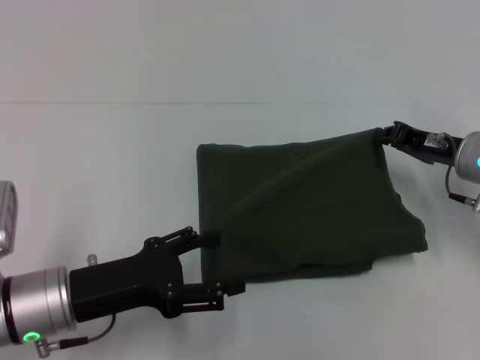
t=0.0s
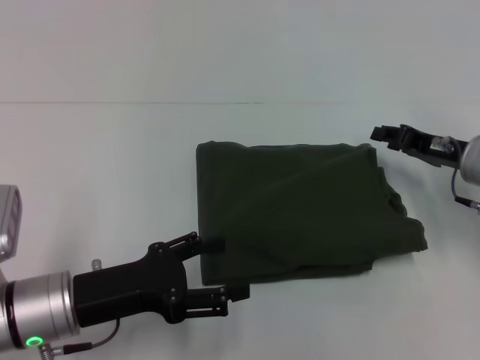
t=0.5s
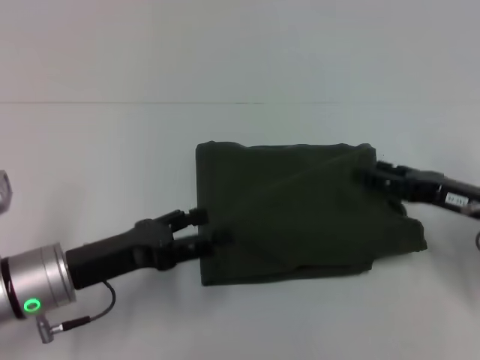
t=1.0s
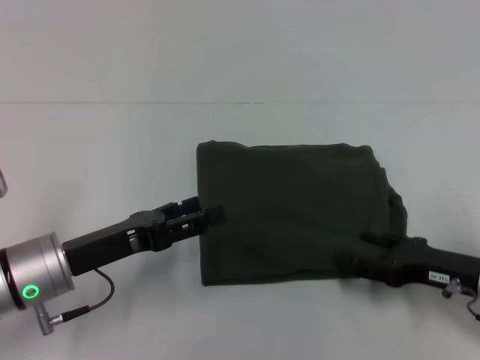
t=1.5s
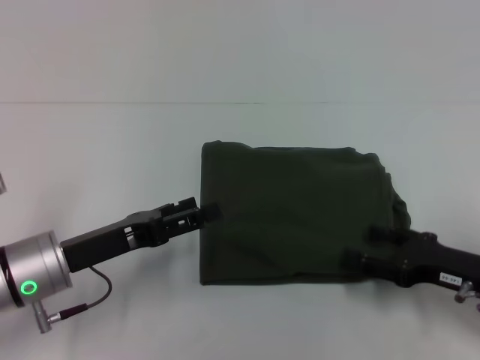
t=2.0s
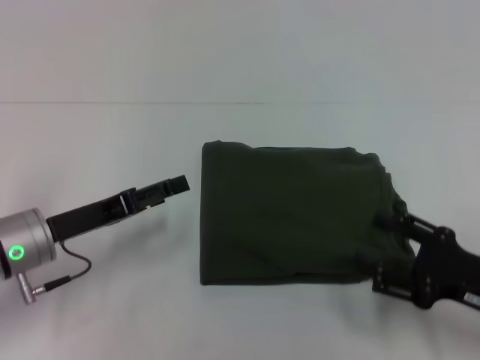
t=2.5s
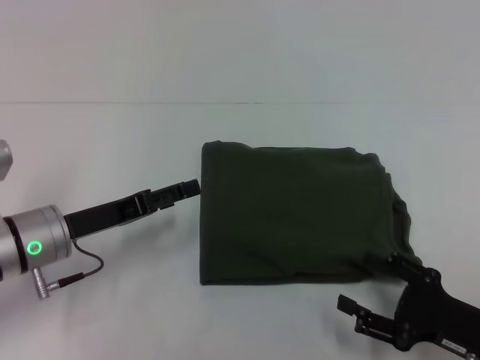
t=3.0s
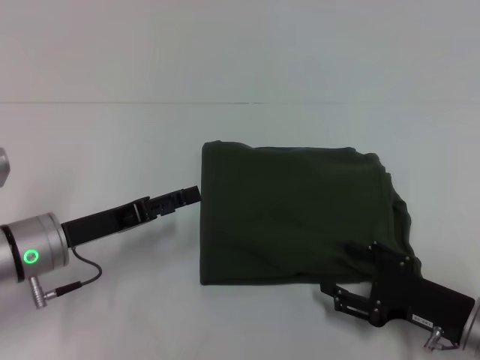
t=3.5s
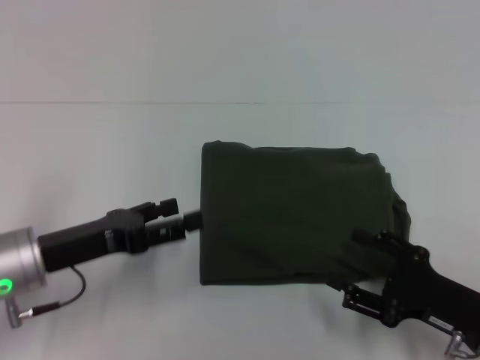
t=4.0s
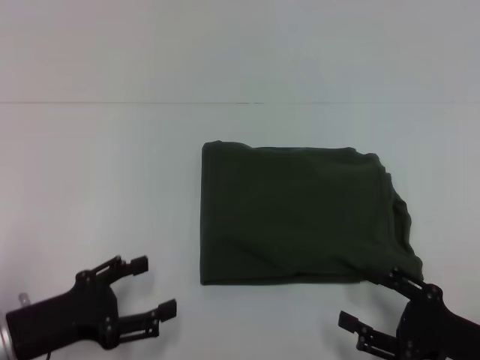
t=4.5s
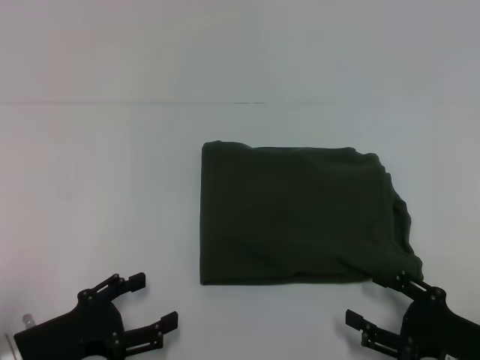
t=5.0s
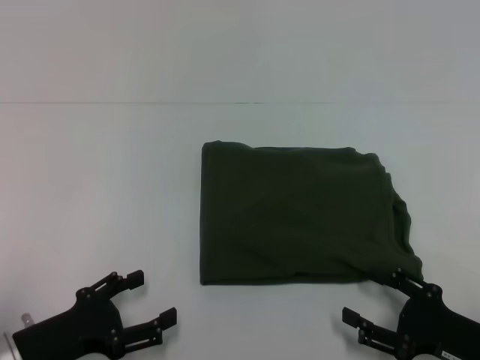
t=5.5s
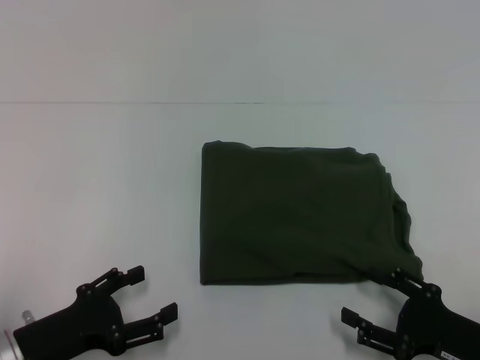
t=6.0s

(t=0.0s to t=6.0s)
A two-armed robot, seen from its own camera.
t=0.0s - t=2.0s: The right gripper heads backward and downward, covering approximately 15 cm, and opens up.
t=2.0s - t=4.0s: The right gripper goes roughly 5 cm backward.
t=4.0s - t=6.0s: The left gripper moves backward and downward, roughly 10 cm.

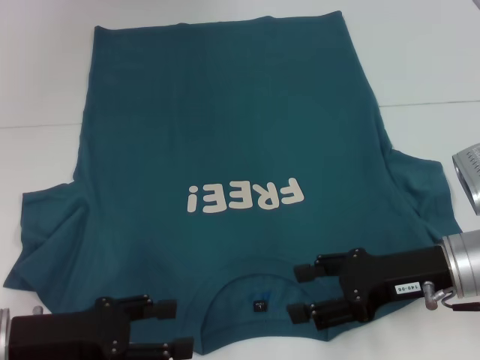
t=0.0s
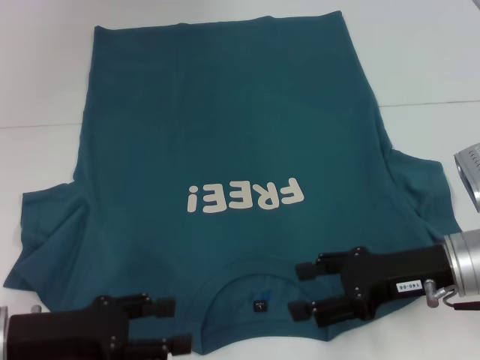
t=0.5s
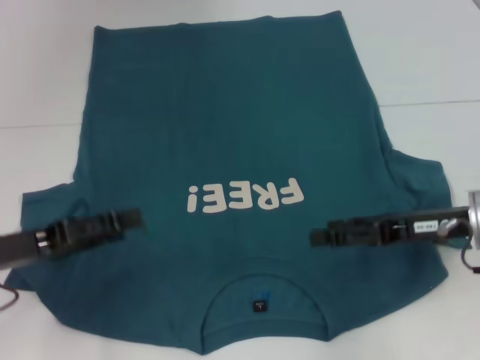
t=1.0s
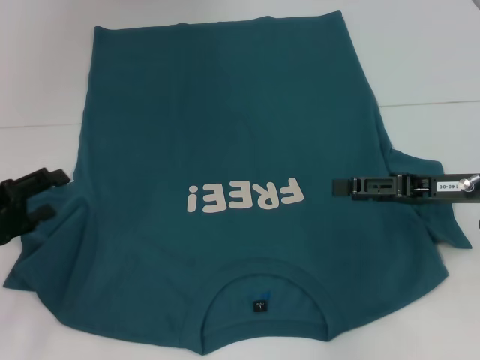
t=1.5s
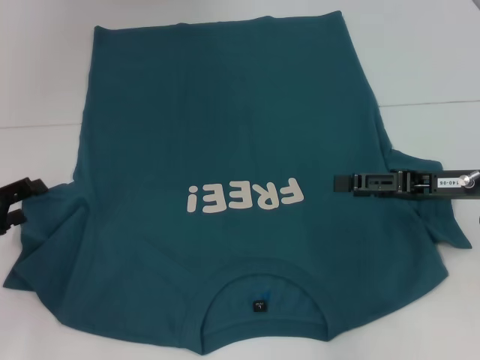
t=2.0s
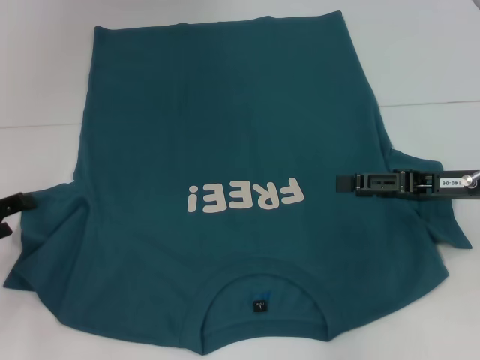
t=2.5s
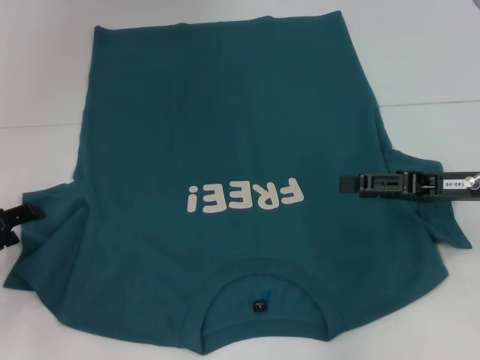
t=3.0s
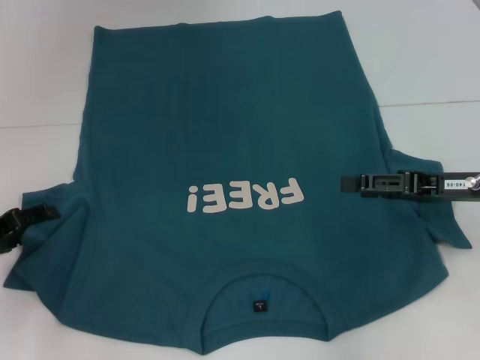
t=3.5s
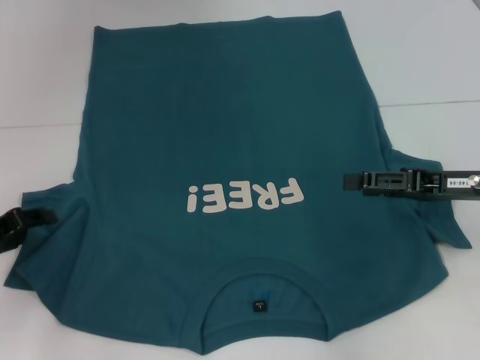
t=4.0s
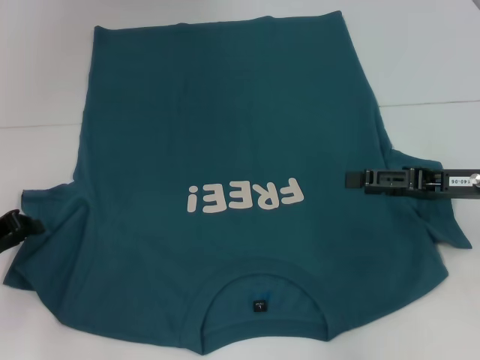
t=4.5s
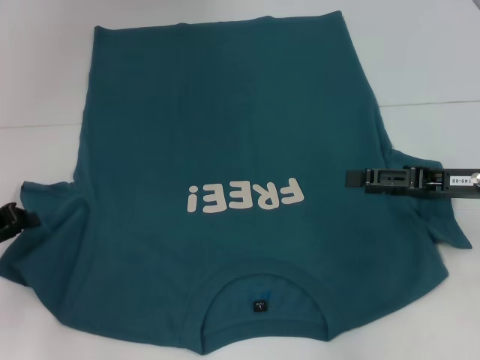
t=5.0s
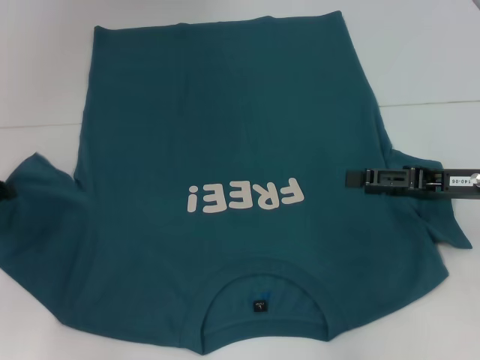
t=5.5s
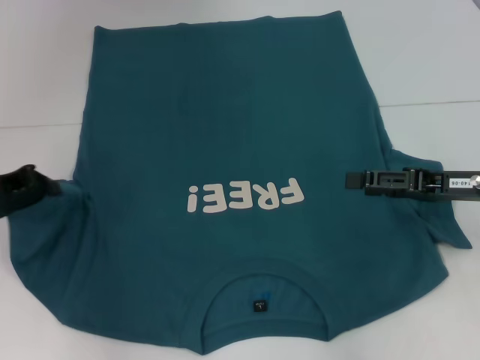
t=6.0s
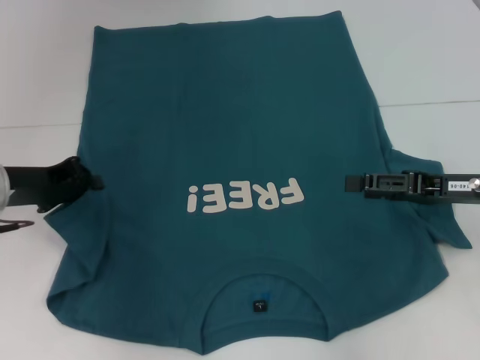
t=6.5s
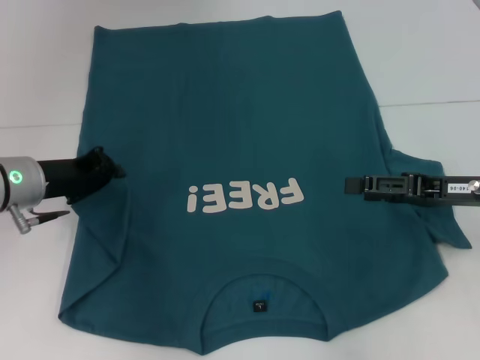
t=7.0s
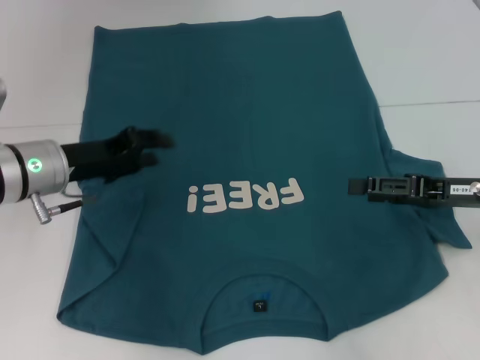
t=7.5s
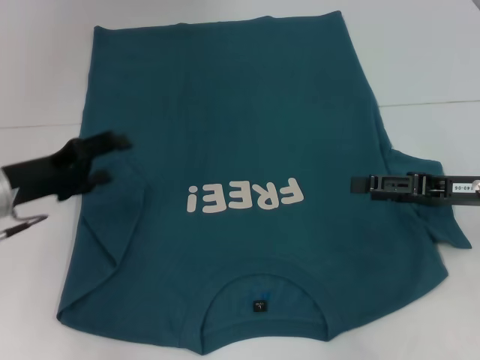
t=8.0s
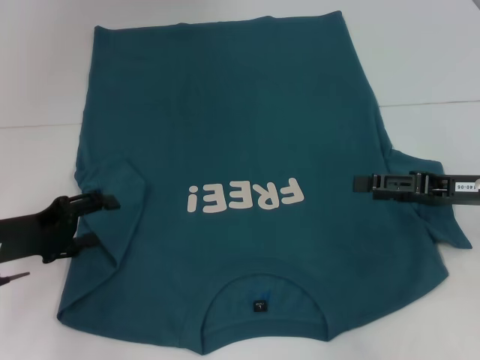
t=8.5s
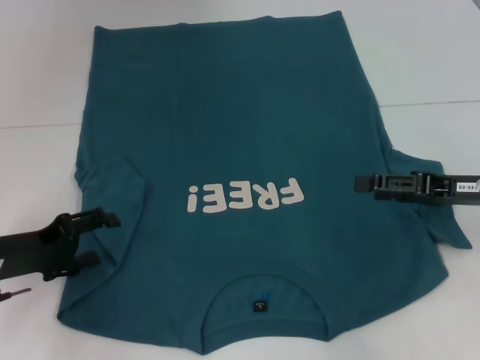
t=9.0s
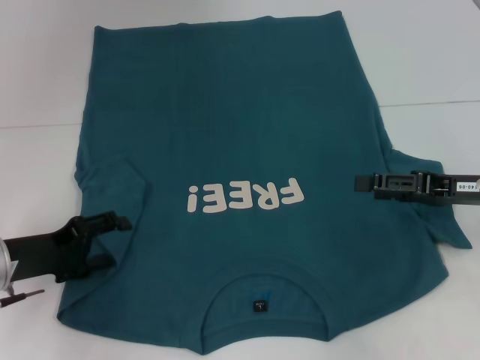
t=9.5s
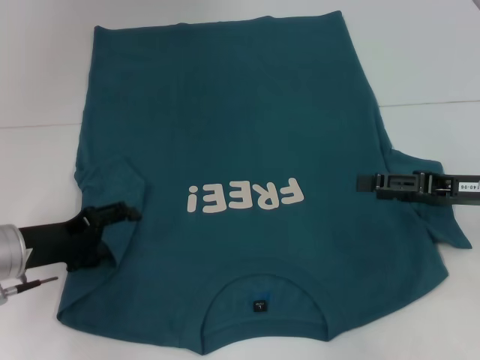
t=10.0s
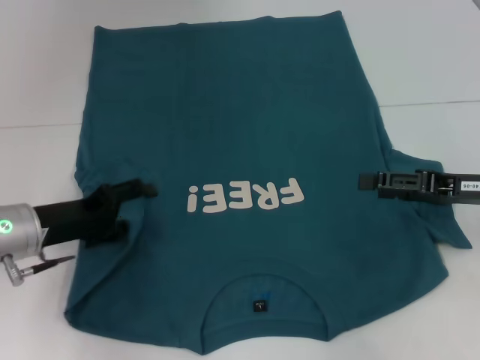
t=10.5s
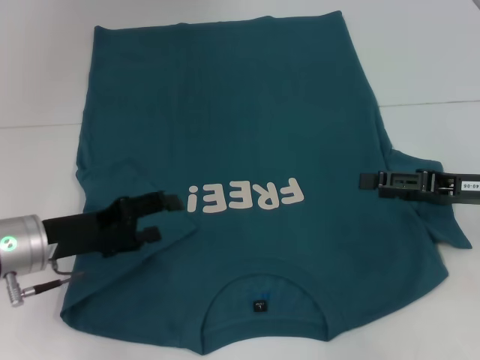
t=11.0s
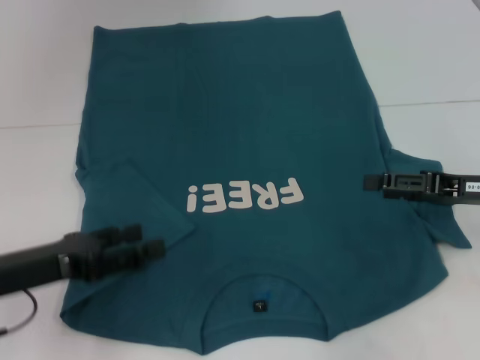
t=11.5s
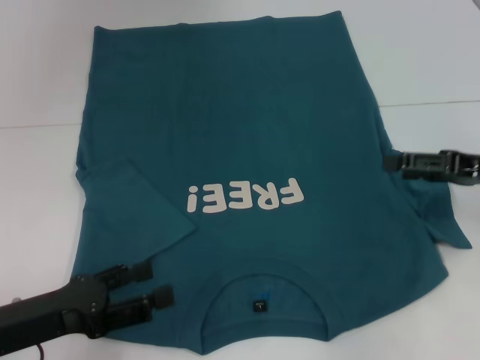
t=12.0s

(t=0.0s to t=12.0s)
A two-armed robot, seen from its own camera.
Step, t=0.0s - t=11.5s: Fold the bottom left sleeve with your left hand.
t=0.0s - t=2.0s: The left gripper shifts about 10 cm to the left and forward; the right gripper shifts about 5 cm to the right.
t=2.0s - t=4.0s: The grippers make only small movements.
t=4.0s - t=6.0s: The left gripper is displaced upward by some 5 cm, and closes up.
t=6.0s - t=8.0s: The left gripper opens.
t=8.0s - t=10.0s: The left gripper changes place by some 5 cm.
t=10.0s - t=12.0s: The left gripper travels backward by roughly 10 cm.

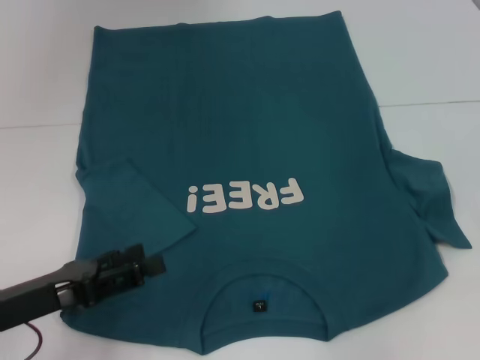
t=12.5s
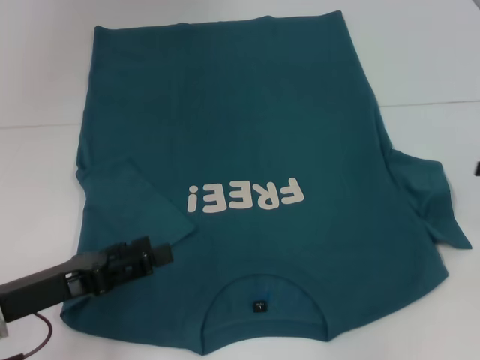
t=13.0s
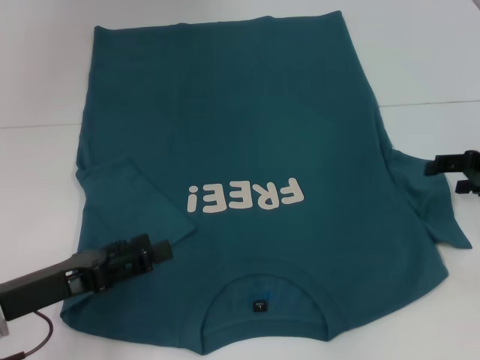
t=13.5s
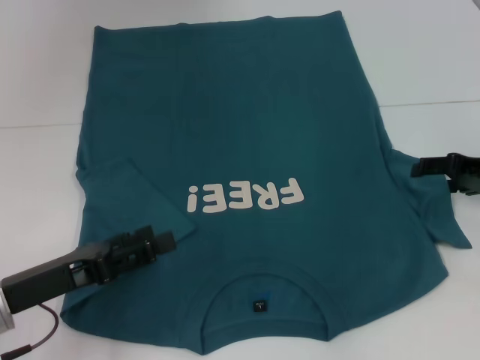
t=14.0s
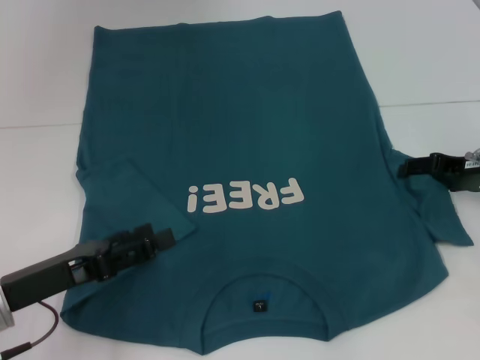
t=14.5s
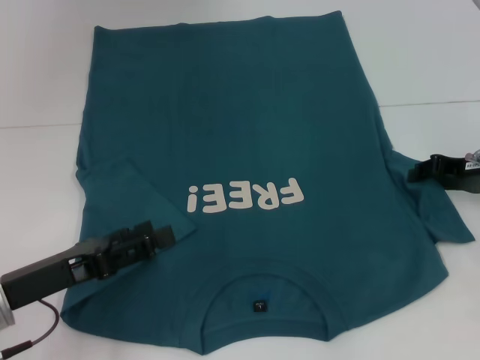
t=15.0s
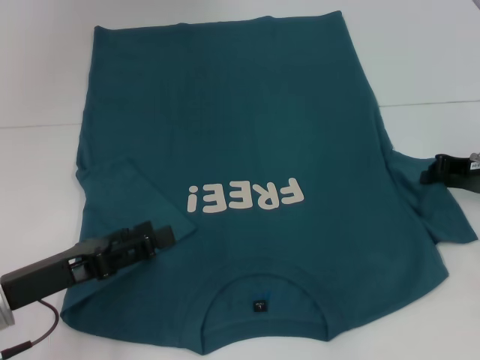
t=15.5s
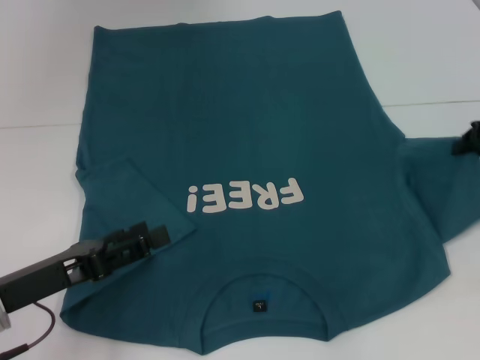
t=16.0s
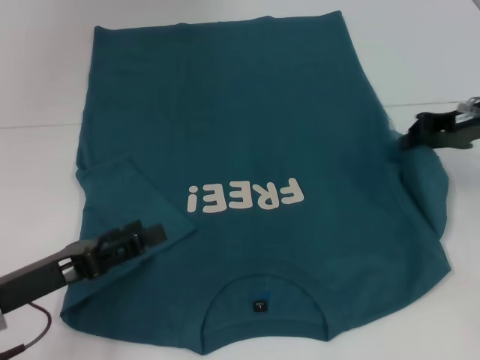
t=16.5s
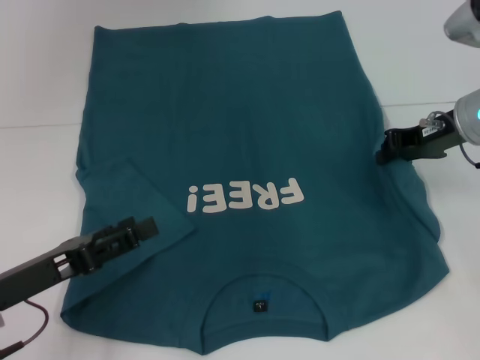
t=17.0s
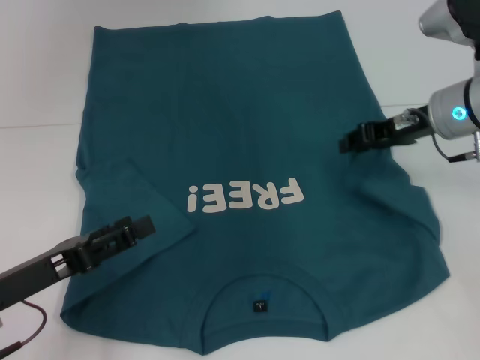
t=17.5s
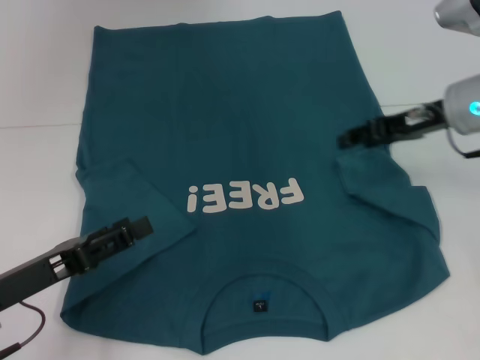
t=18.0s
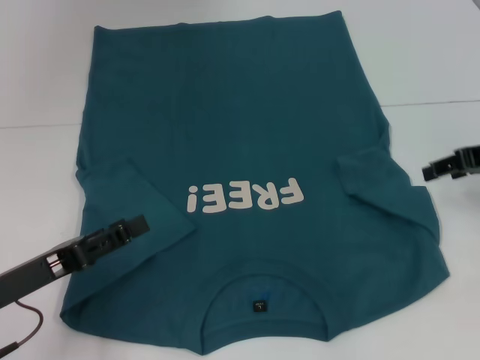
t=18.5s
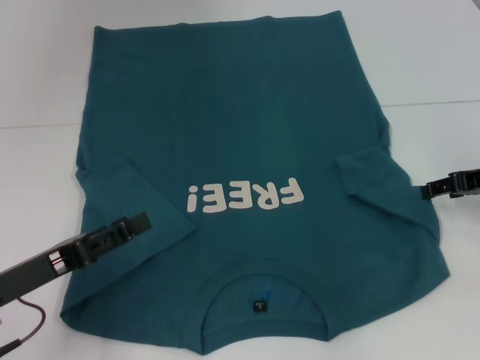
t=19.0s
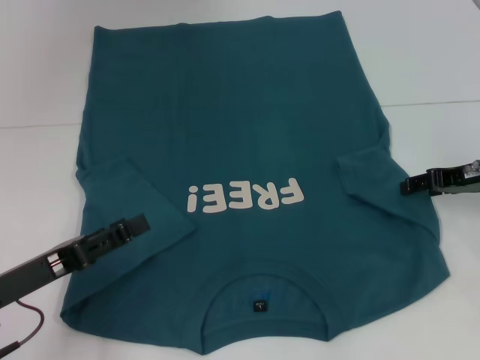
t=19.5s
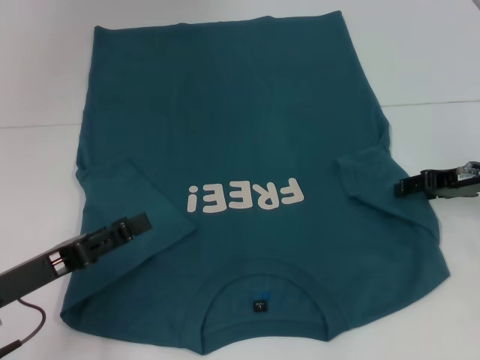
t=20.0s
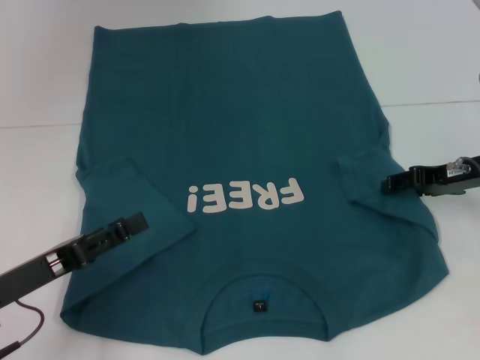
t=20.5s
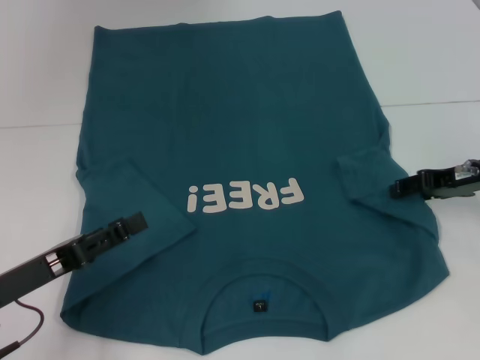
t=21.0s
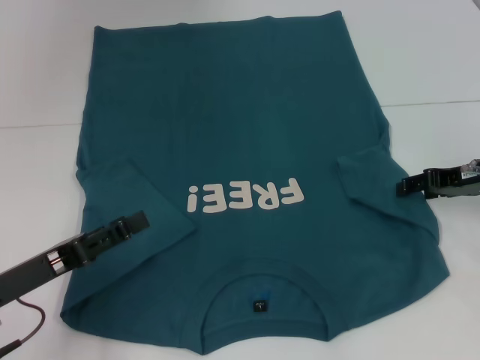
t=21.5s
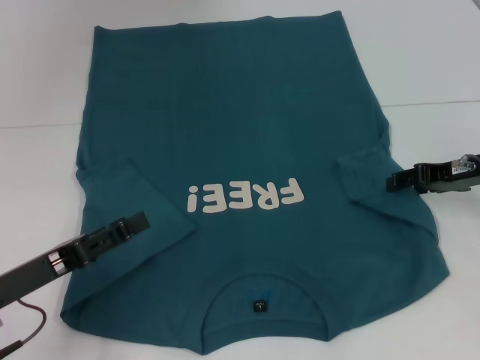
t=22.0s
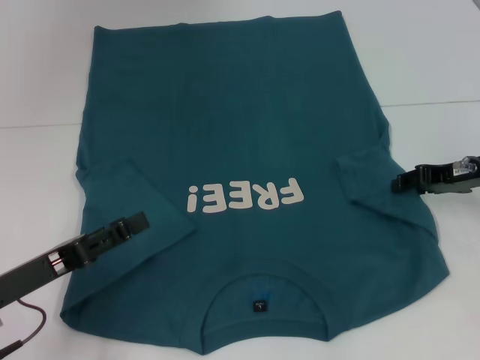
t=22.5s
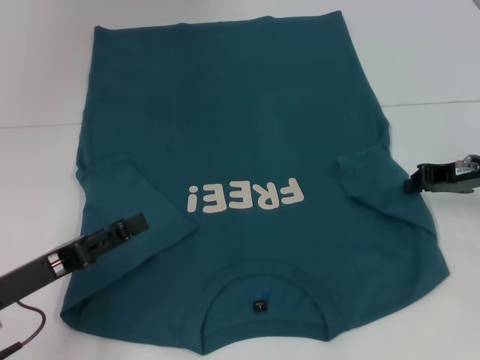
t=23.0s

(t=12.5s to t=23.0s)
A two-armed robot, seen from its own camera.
t=12.5s - t=14.5s: The right gripper shifts some 15 cm to the left, forward and downward.
t=14.5s - t=16.5s: The right gripper moves upward, some 5 cm, and closes up.
t=16.5s - t=19.0s: The right gripper moves approximately 5 cm, and opens up.
t=19.0s - t=21.0s: The grippers make only small movements.
t=21.0s - t=23.0s: The right gripper closes up.
